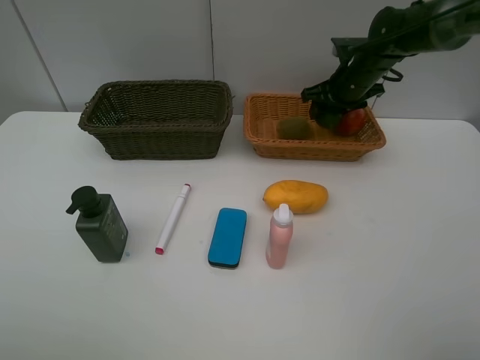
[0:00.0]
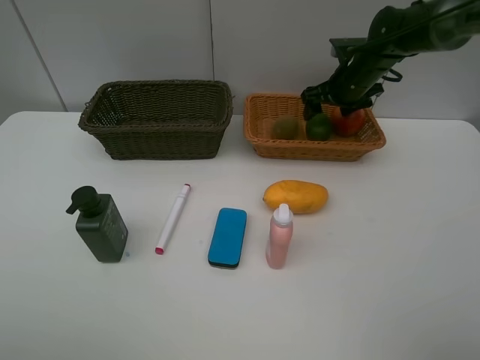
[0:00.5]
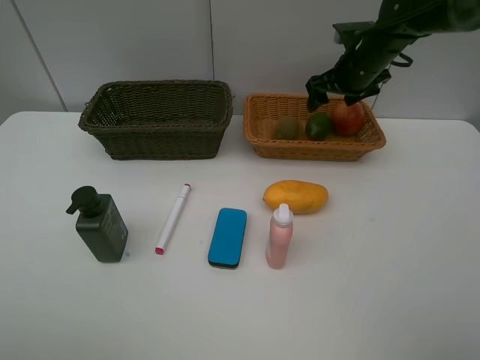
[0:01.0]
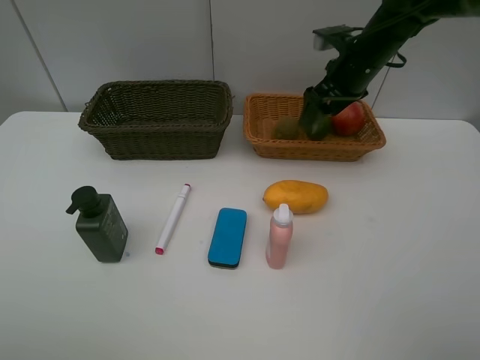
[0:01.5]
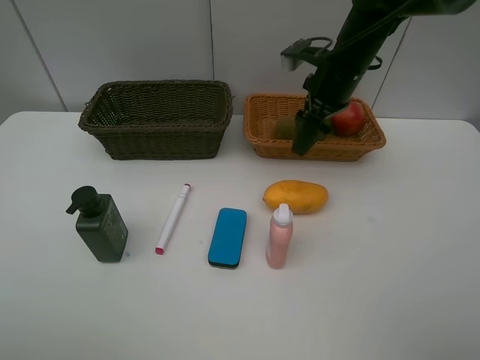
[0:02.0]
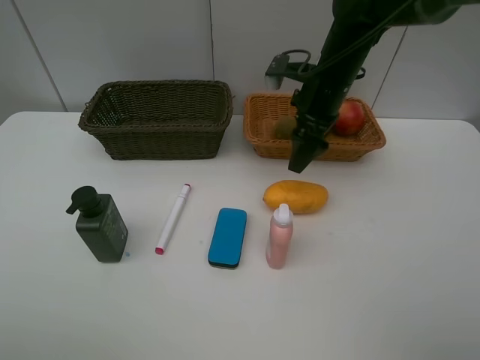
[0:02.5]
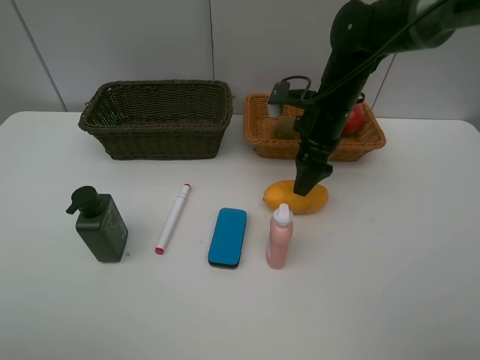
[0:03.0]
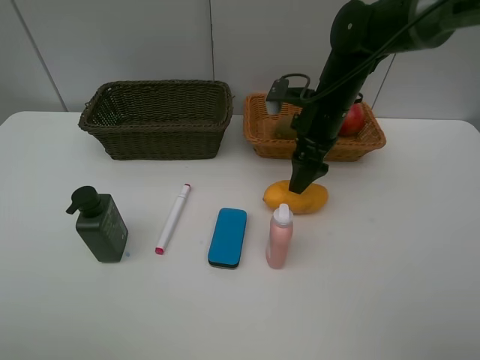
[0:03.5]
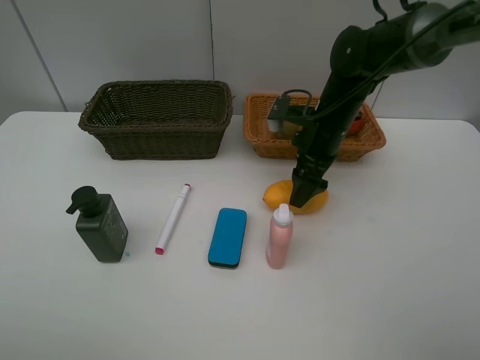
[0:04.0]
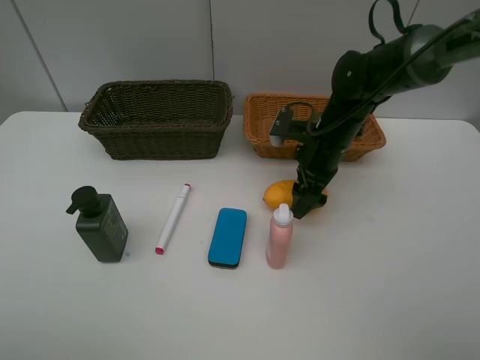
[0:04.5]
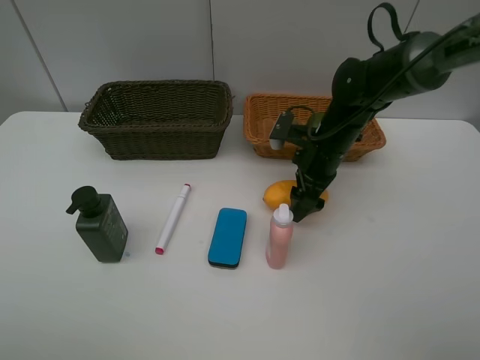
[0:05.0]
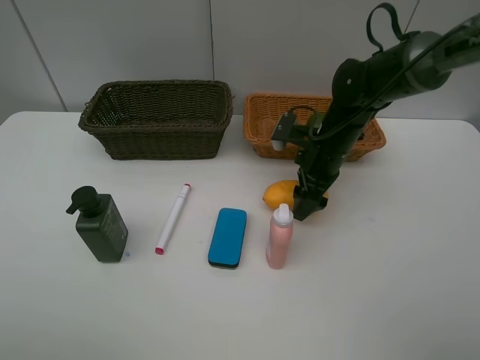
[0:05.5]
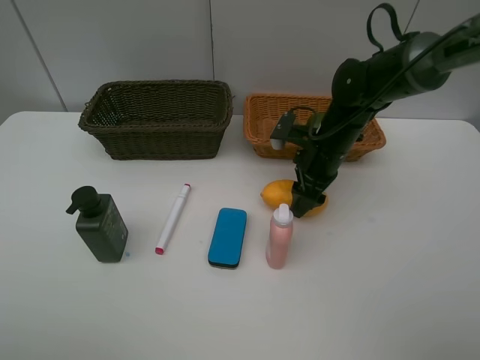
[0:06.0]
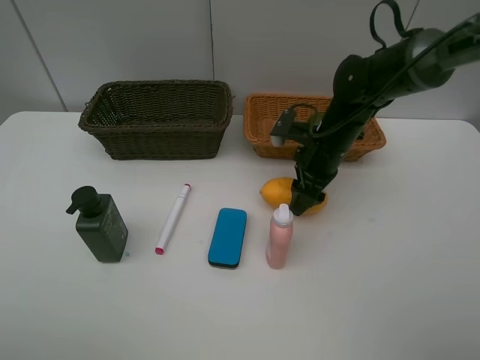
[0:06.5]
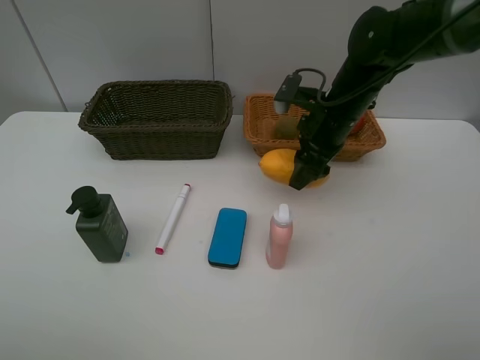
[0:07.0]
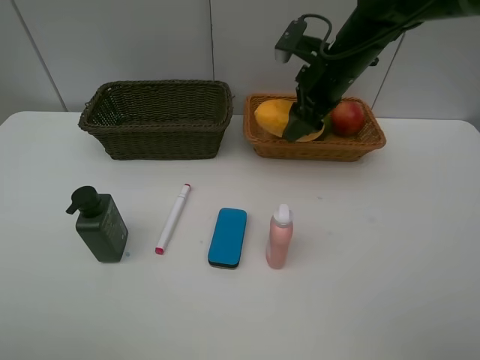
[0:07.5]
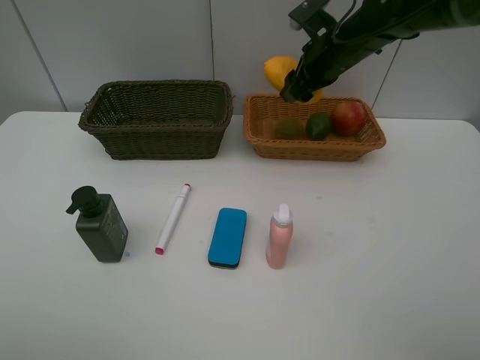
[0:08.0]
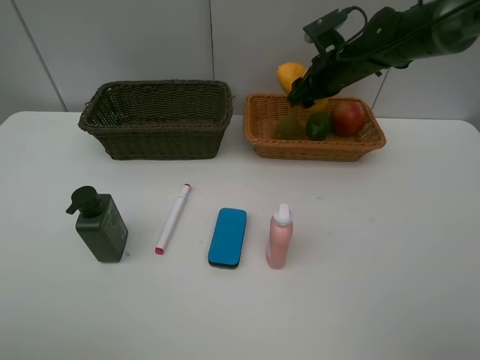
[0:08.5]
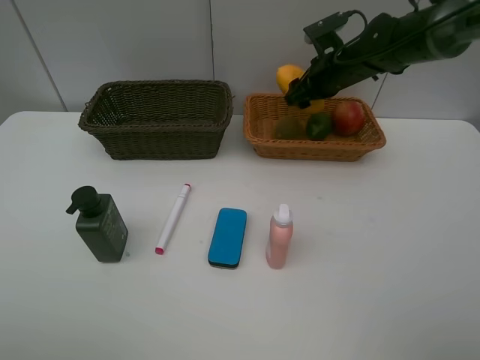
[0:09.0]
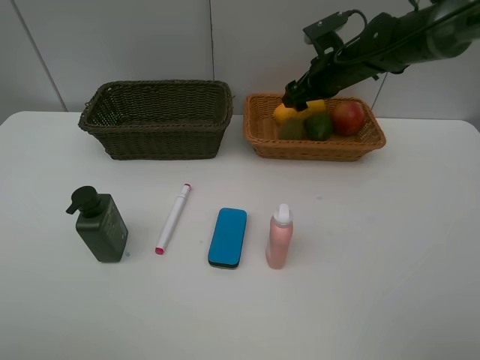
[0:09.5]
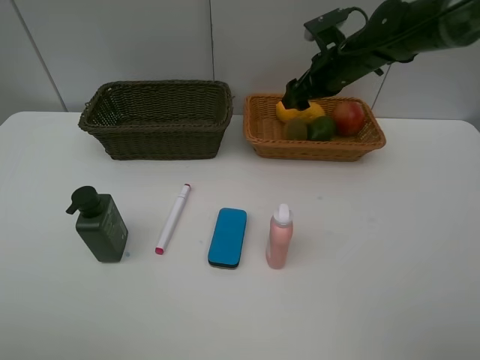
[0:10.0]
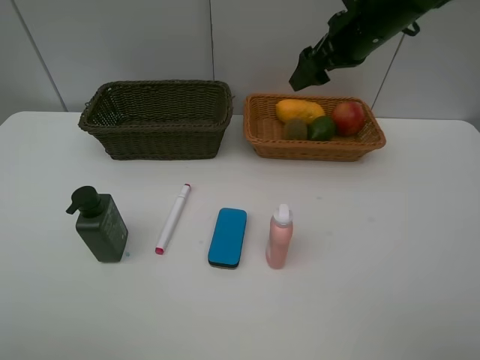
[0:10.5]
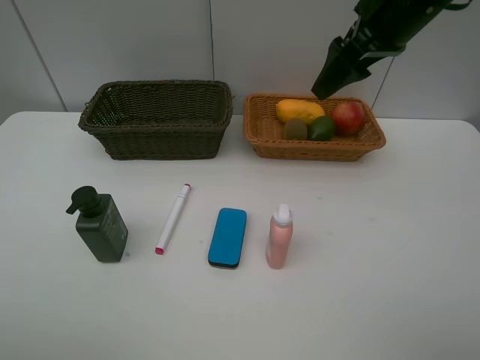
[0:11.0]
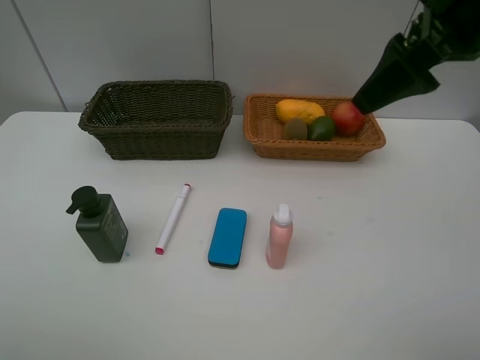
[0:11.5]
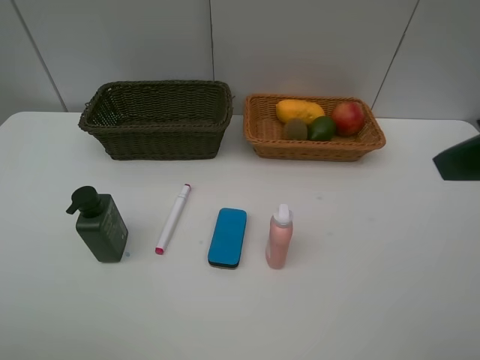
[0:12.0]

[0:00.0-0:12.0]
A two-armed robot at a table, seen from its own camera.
Task of the whole recording: Place multiple objects separately in different baskets.
Step, 0:01.5 to 0:07.0: Pick up the mango with right gripper.
Step, 0:07.5 to 0:09.5: Place the mango in the light basket with right gripper.
0:00.0 to 0:02.0: The right gripper is displaced backward and to the left by roughly 10 cm, and opens up.
0:02.0 to 0:04.0: The right gripper shifts about 5 cm downward.
0:04.0 to 0:06.0: The right gripper closes its fingers.
0:06.0 to 0:08.0: The right gripper heads upward and forward, covering about 15 cm.
0:08.0 to 0:10.0: The right gripper opens up.
0:10.0 to 0:12.0: The right gripper travels backward and upward by about 35 cm.

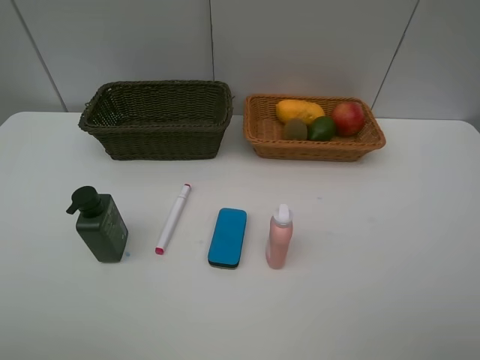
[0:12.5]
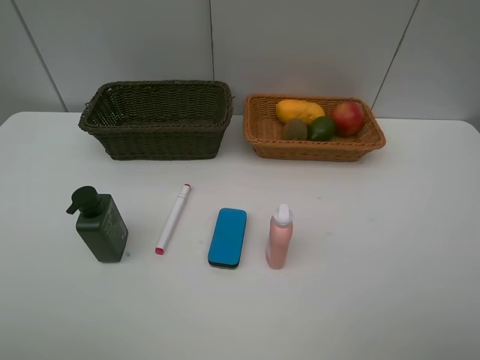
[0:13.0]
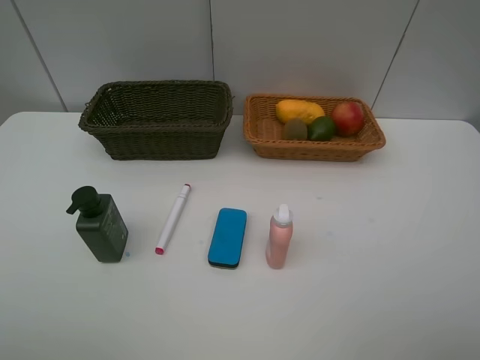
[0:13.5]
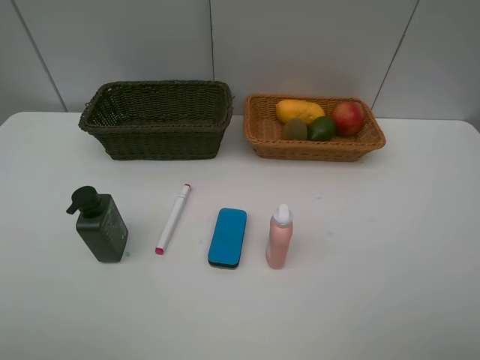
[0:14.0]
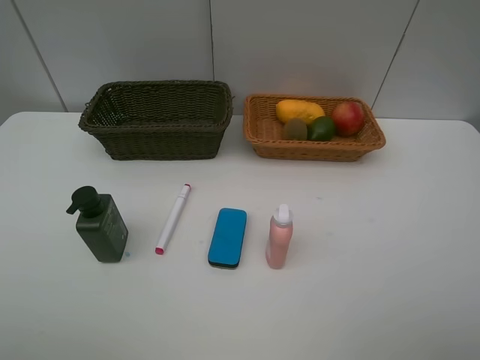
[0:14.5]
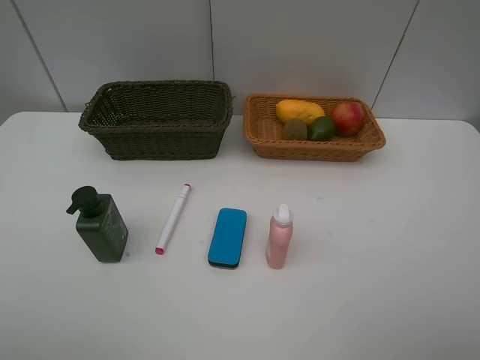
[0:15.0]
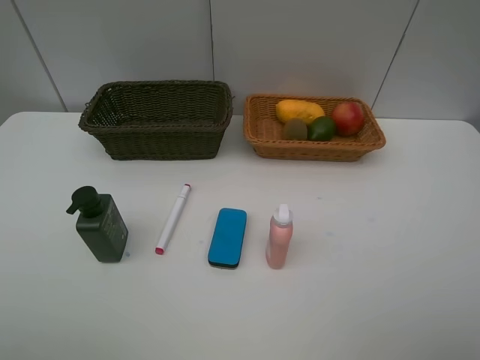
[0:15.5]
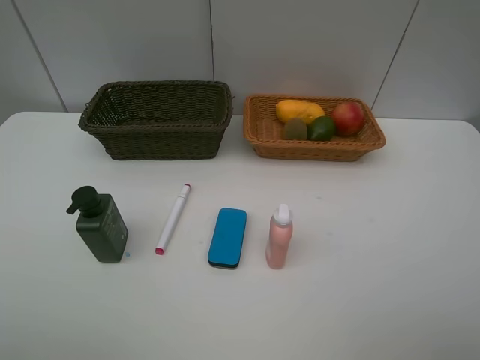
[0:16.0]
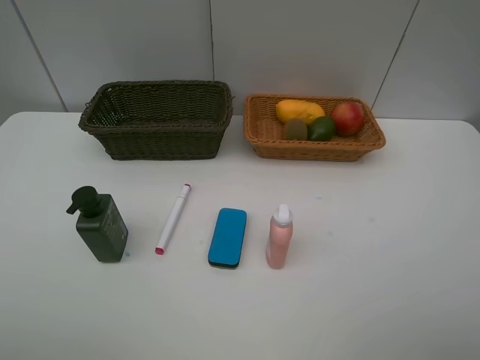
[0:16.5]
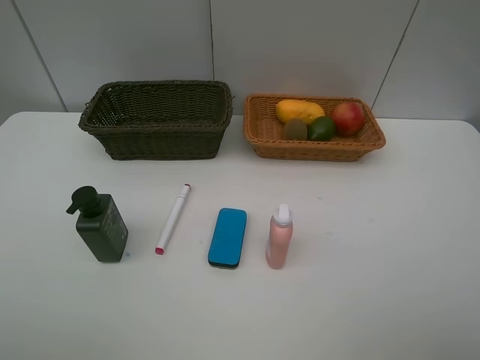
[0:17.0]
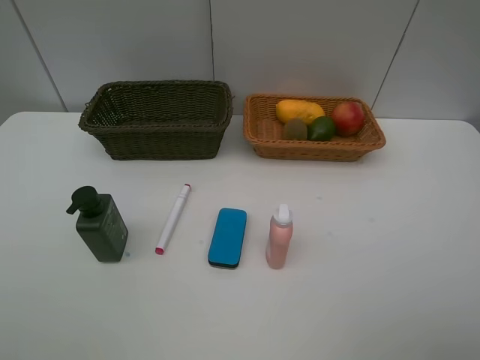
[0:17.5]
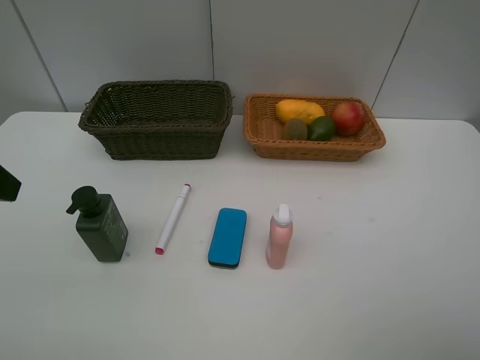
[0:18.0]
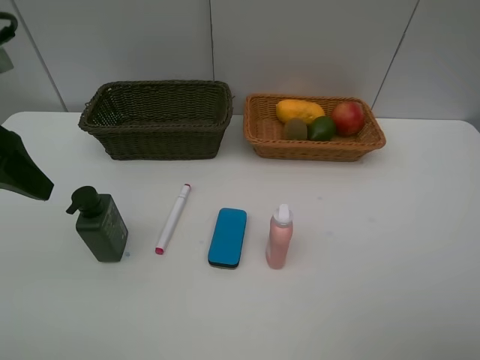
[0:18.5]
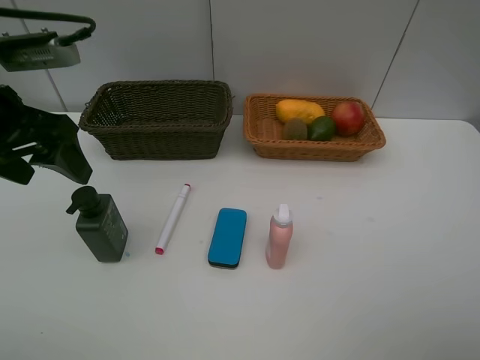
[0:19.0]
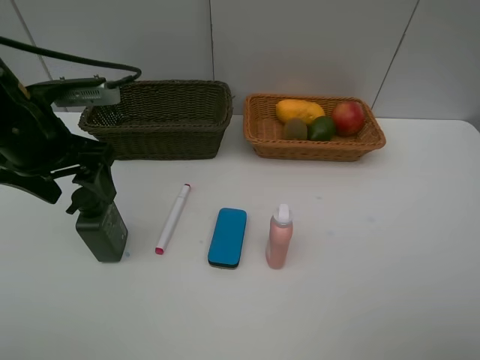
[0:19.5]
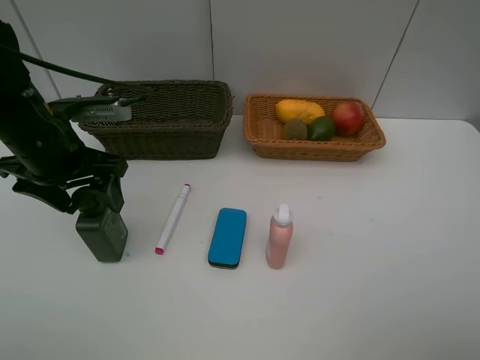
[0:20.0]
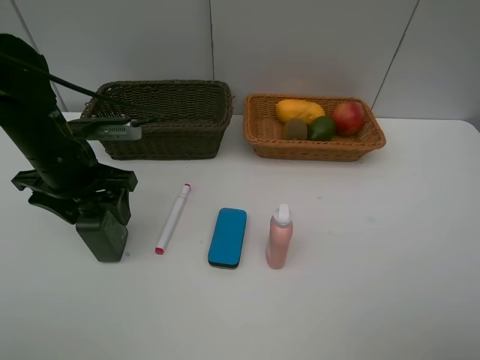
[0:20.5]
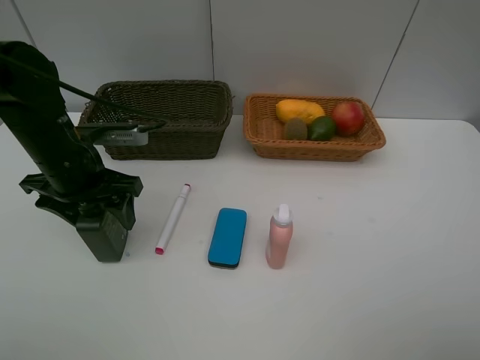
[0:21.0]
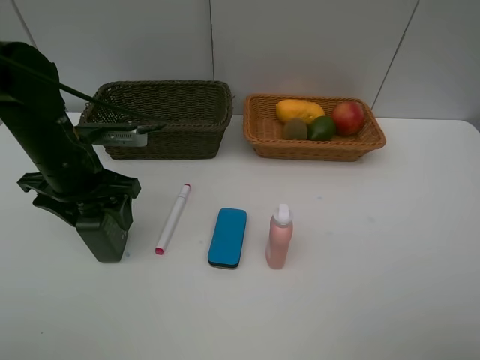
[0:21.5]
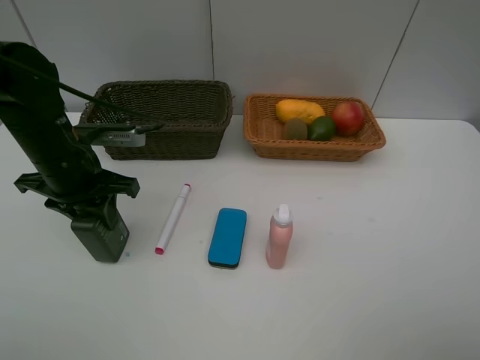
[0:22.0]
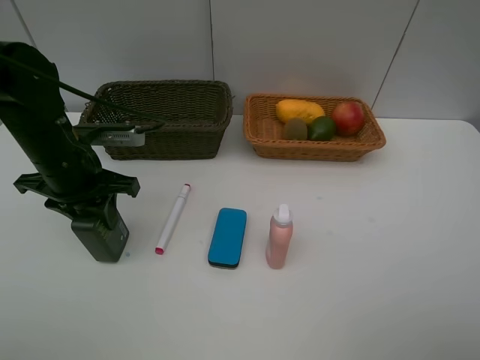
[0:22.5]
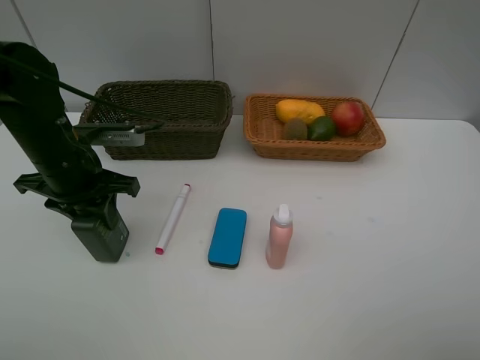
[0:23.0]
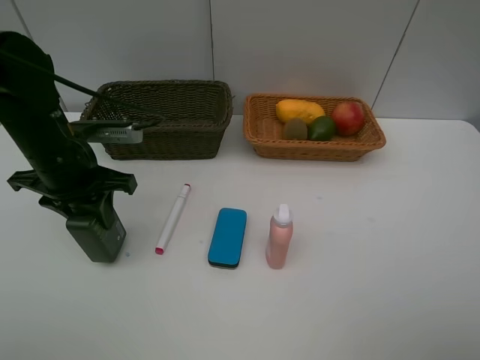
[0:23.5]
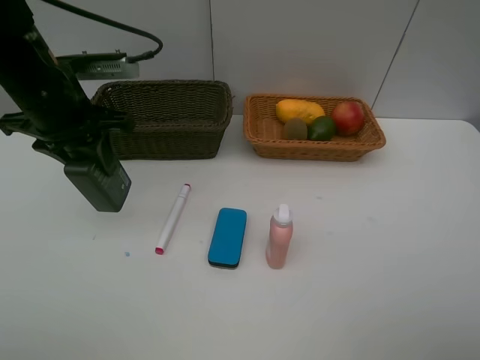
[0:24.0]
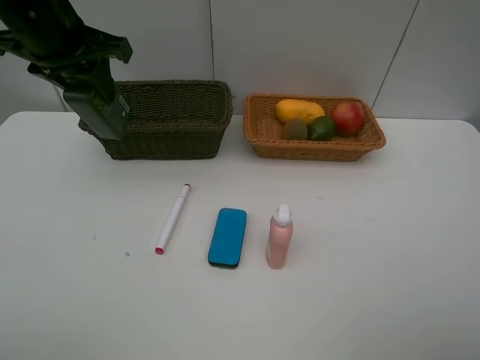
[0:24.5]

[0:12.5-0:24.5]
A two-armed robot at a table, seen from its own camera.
Task of the whole recording: Place multiple objects separately in different baskets.
Step, 0:12.5 to 0:23.5: Pick up the hard facial cleanser with left gripper.
0:14.5 to 0:16.5: The two grippers keep their place.
0:16.5 to 0:18.5: The left gripper moves forward, about 20 cm.
0:18.5 to 0:20.5: The left gripper heads downward, forward and to the right, covering some 15 cm.
0:20.5 to 0:22.5: The left gripper closes.
0:22.5 to 0:24.5: The left gripper travels upward by some 15 cm.

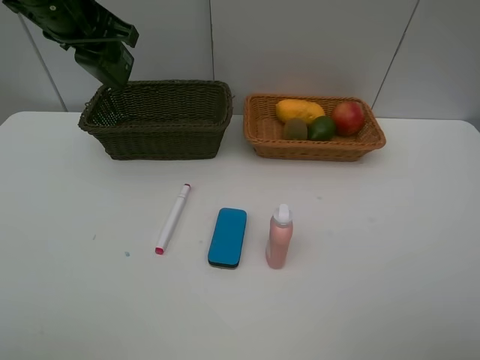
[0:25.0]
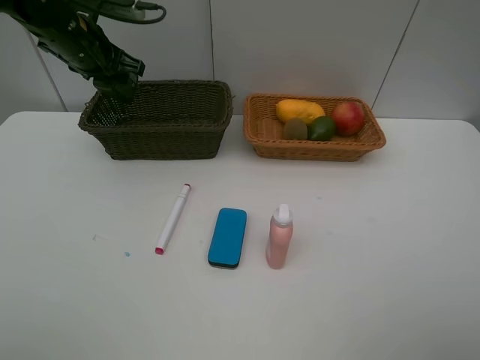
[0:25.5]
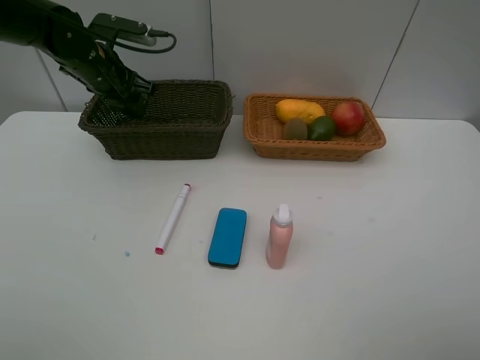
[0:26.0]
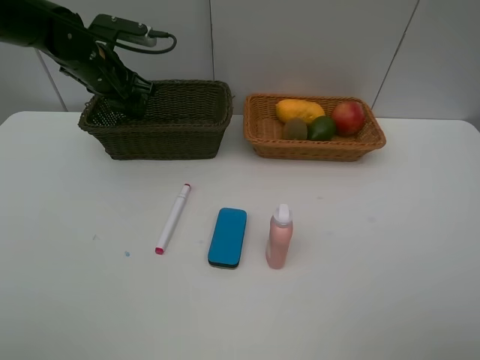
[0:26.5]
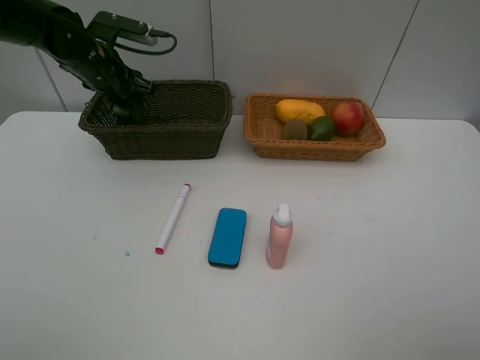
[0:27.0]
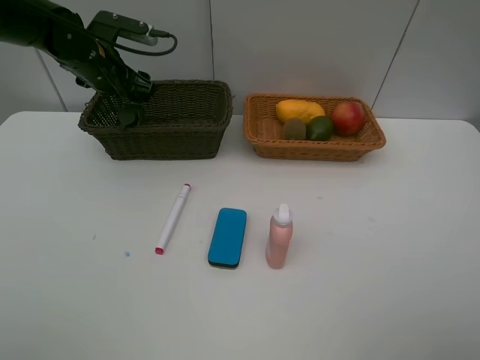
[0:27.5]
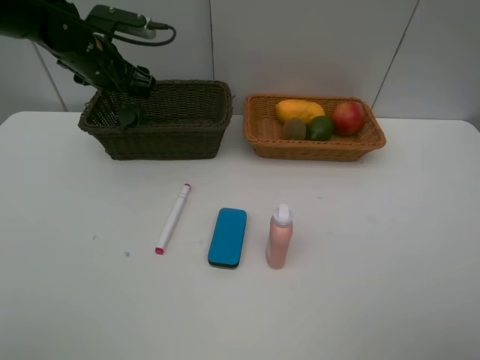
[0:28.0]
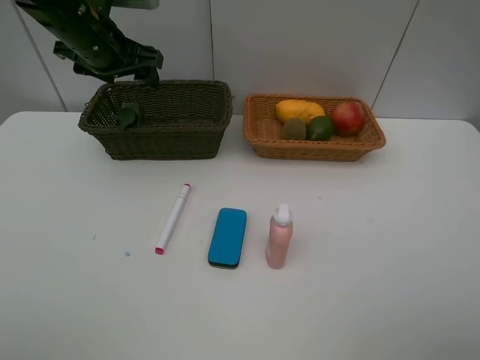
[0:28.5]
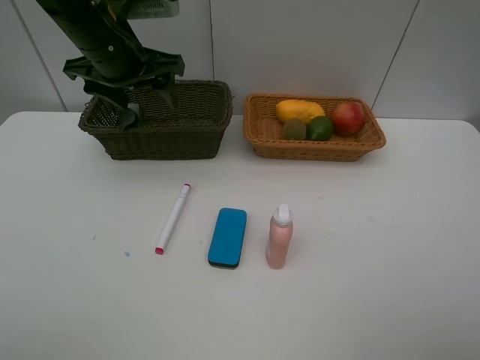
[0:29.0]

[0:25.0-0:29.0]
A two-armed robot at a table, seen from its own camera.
Task of the whole recording: Place multiple objects separately in different baskets.
Step, 0:25.0 to 0:28.0: Place the hard facial cleanser in the dark basket with left gripper.
0:25.0 to 0:27.0: The left gripper shifts some 15 cm downward and forward, and opens.
0:27.0 to 0:29.0: The left gripper moves backward, upward and to the right, approximately 15 cm.
